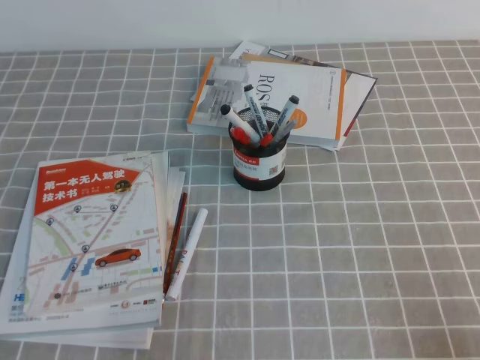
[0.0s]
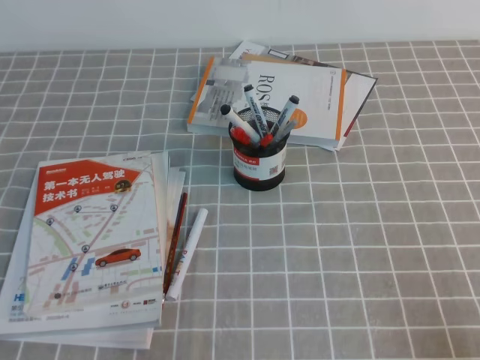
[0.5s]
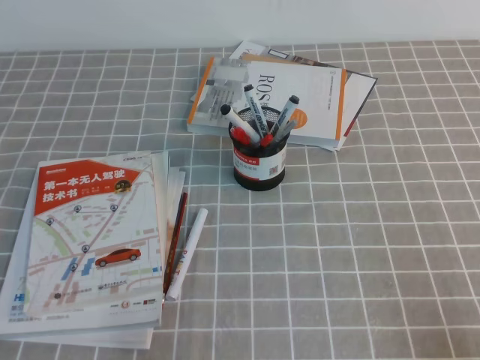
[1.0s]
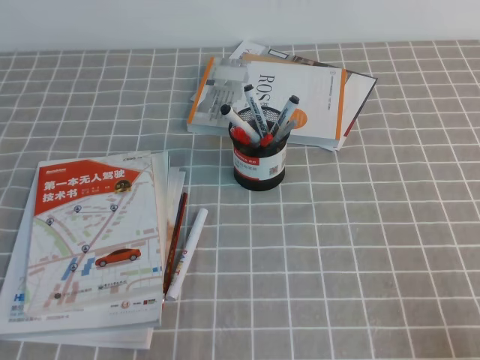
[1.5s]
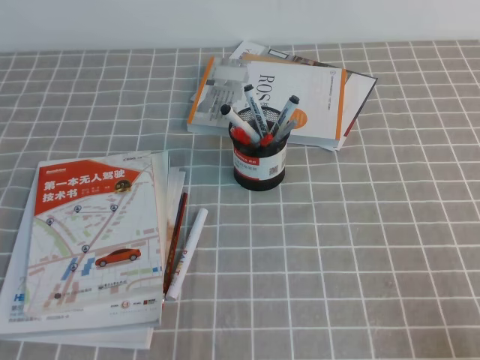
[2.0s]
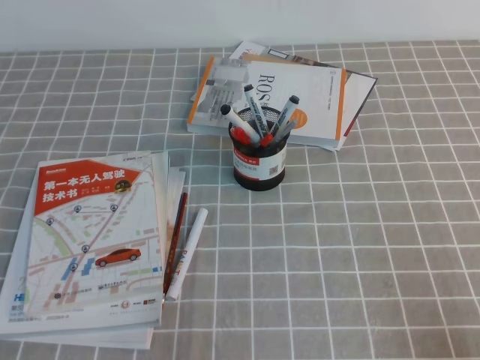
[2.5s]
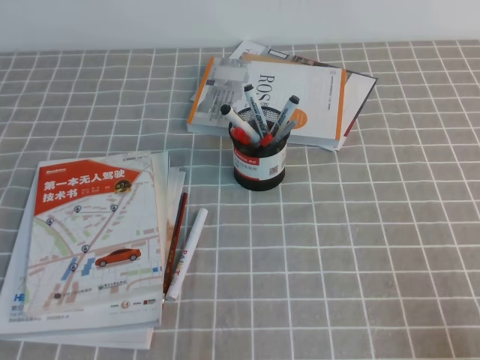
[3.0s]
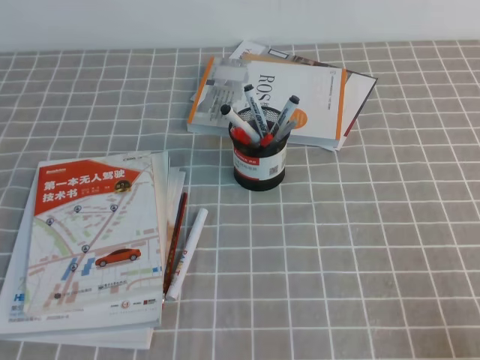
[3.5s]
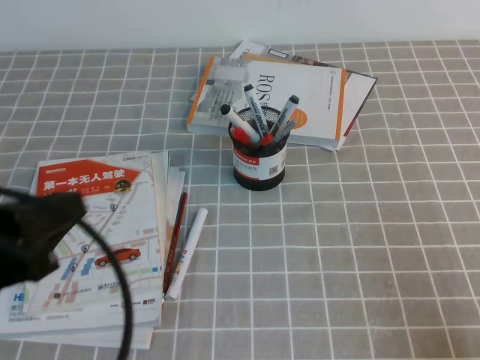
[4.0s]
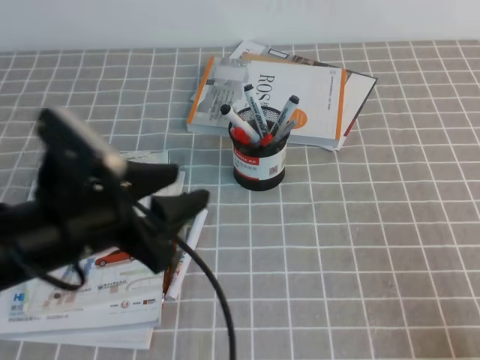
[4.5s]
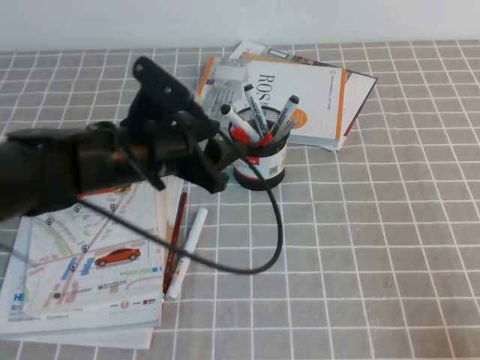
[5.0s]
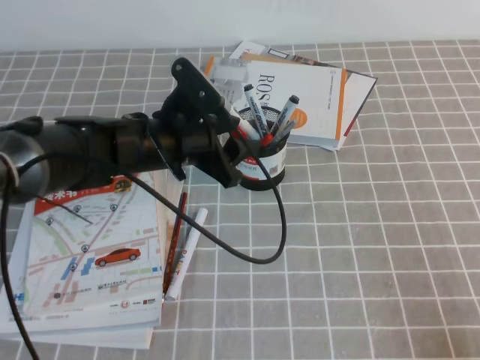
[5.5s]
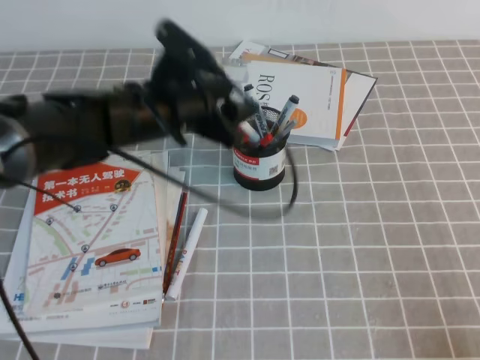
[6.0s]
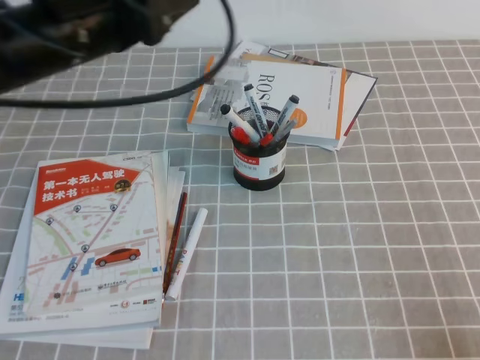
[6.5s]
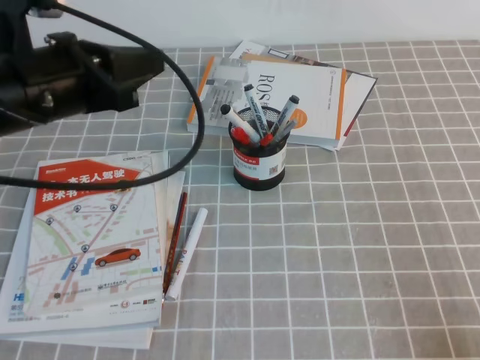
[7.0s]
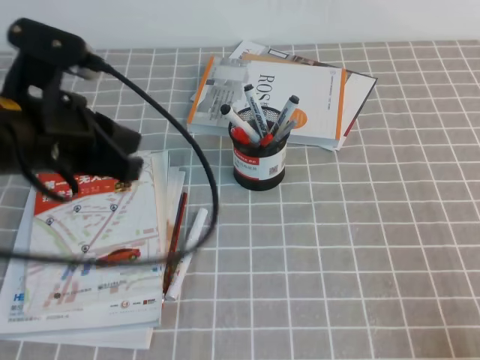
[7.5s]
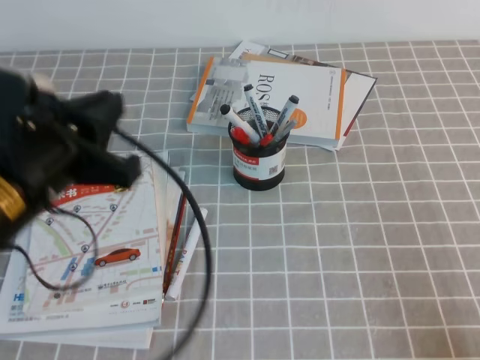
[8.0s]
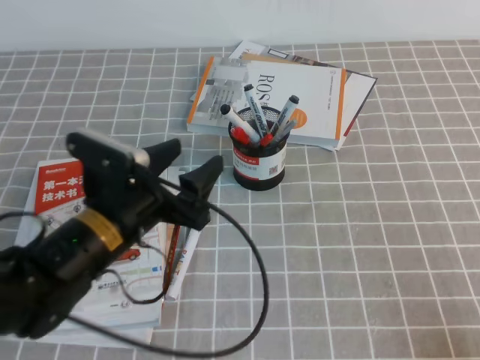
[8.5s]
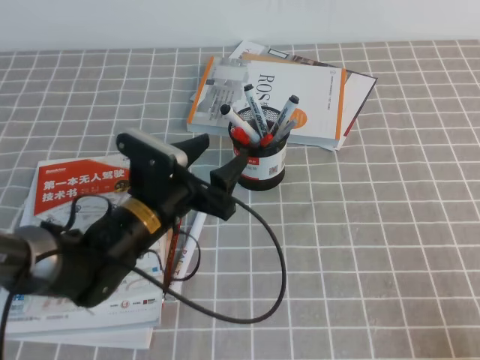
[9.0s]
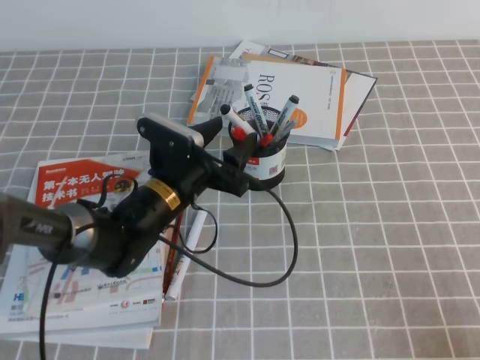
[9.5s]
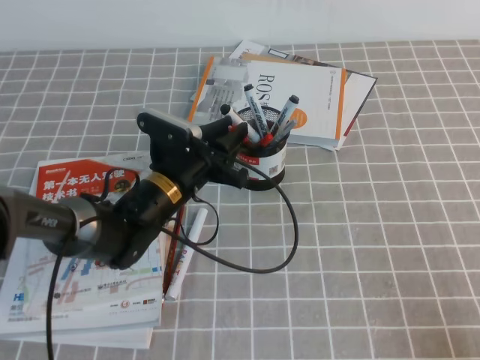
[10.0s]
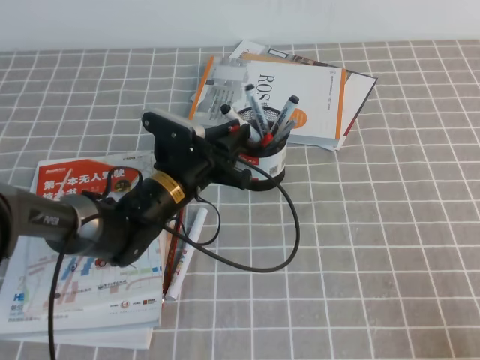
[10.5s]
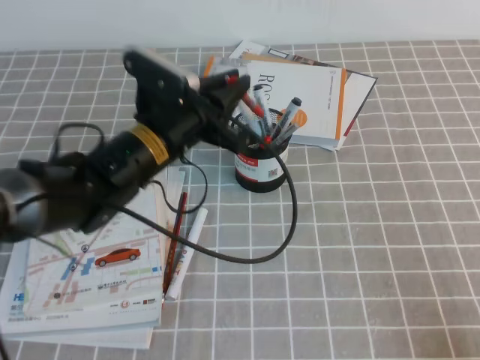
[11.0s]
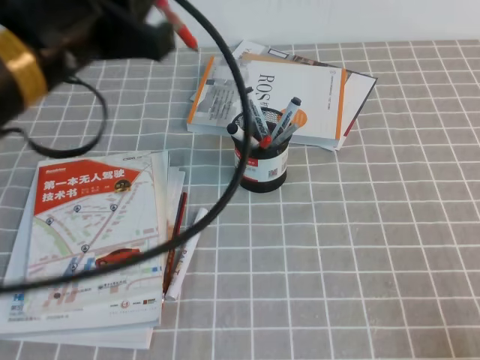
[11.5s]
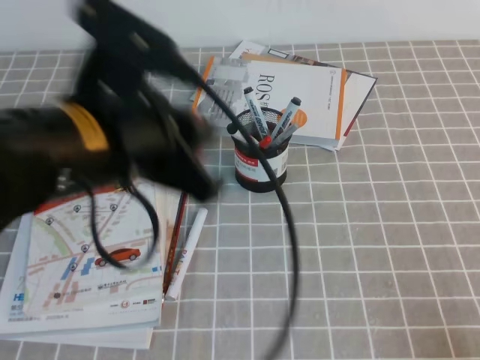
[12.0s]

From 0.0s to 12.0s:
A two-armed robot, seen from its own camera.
From 2.0s to 4.0s: The left gripper travels upward by about 10 cm.
From 4.0s to 6.0s: The left gripper is displaced forward and to the right by roughly 30 cm, and opens its fingers.
From 6.0s to 8.0s: The left gripper moves backward, to the left and upward, approximately 20 cm, and closes.
From 8.0s to 10.0s: The left gripper heads downward, forward and to the right, covering roughly 25 cm, and opens.
From 10.0s to 12.0s: The left gripper travels upward and backward by about 30 cm.

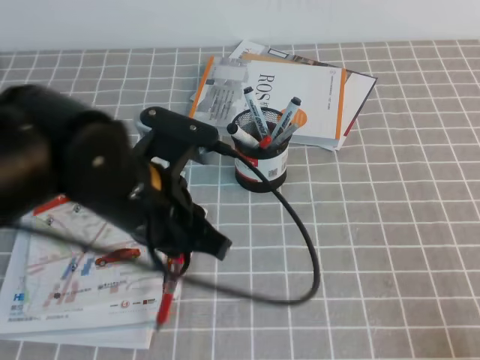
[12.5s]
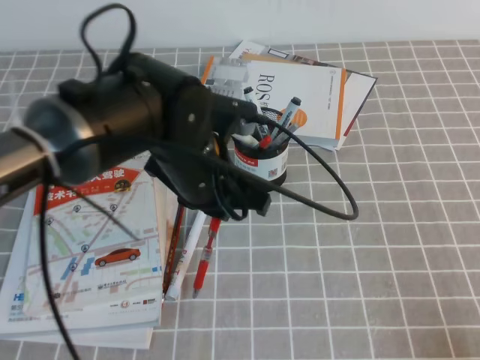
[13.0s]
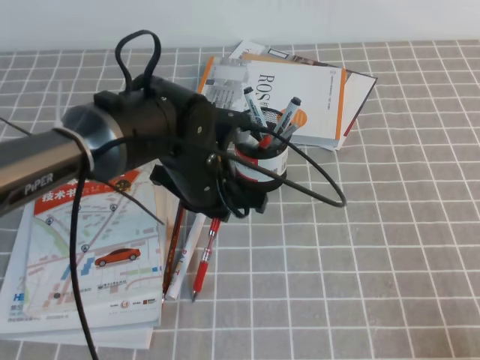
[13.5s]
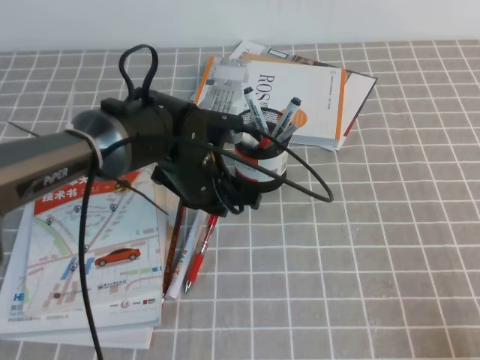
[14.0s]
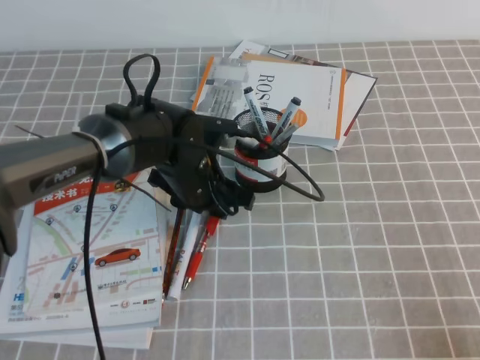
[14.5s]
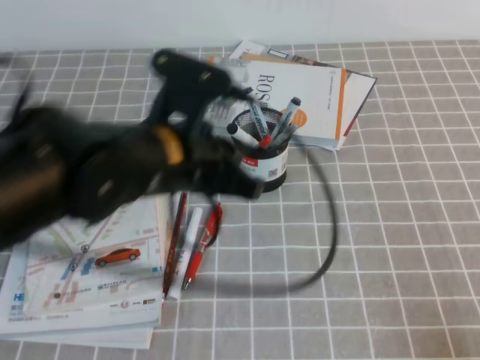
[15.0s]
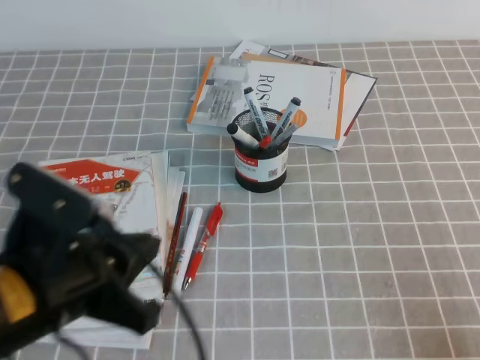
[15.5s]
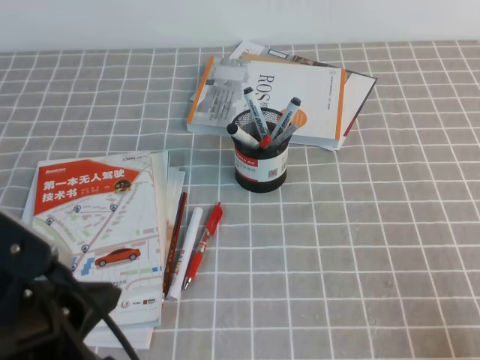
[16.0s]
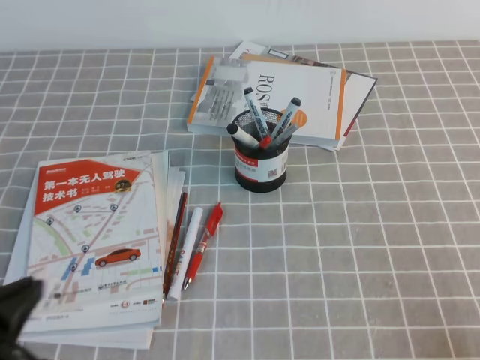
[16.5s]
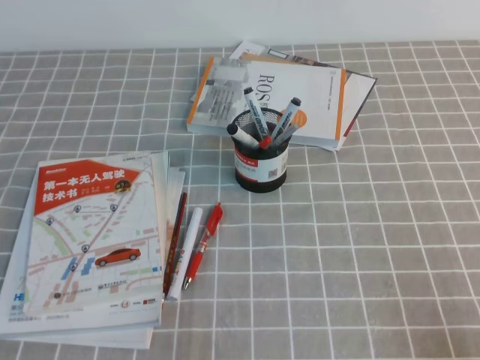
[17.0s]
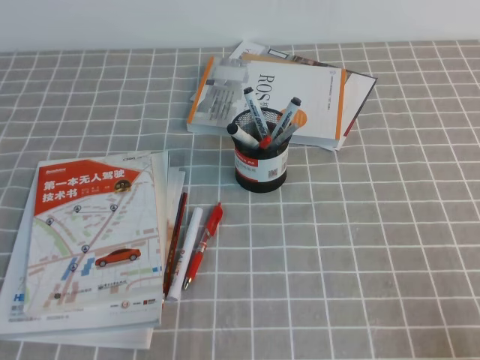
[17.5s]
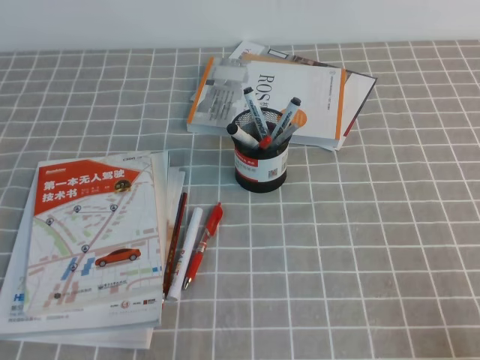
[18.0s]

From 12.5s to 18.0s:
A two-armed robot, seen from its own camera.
Step, from 12.5s to 18.0s: Pick up the pen from the pen holder.
From 12.5s to 14.5s: The left gripper travels forward and downward by some 20 cm, and opens.
From 14.5s to 16.0s: The left gripper shifts approximately 30 cm backward, to the left and upward, and closes up.
From 16.0s to 18.0s: The left gripper moves downward, to the left and backward, roughly 15 cm.

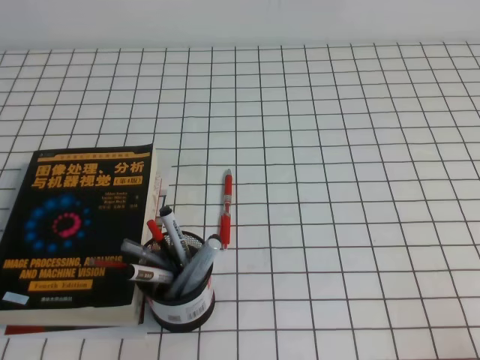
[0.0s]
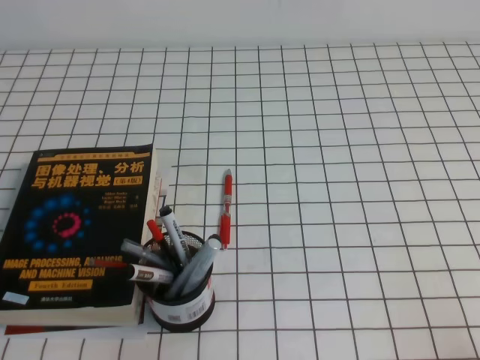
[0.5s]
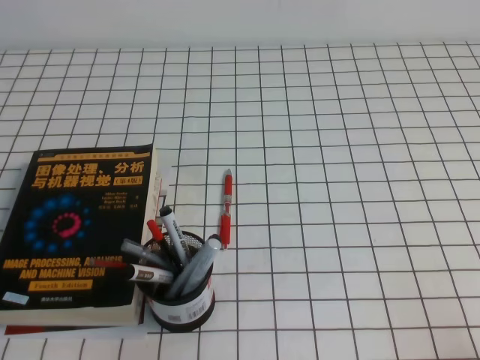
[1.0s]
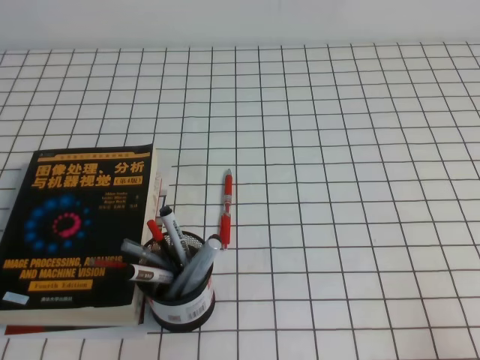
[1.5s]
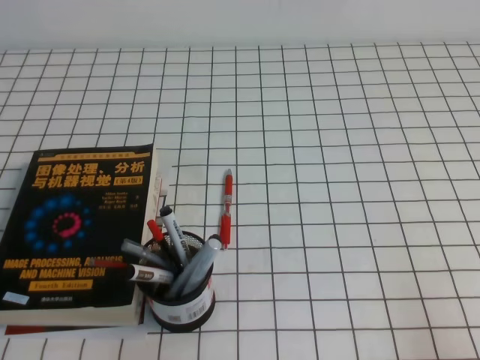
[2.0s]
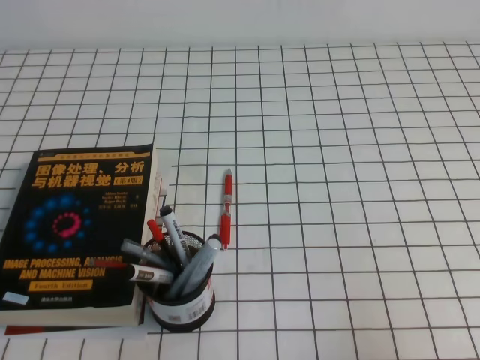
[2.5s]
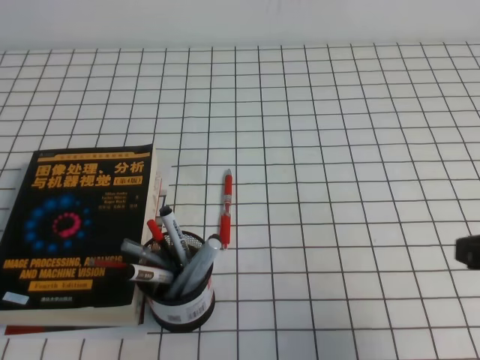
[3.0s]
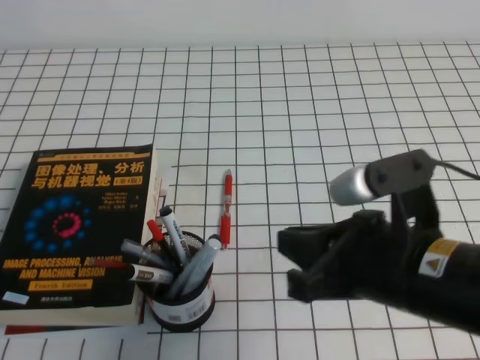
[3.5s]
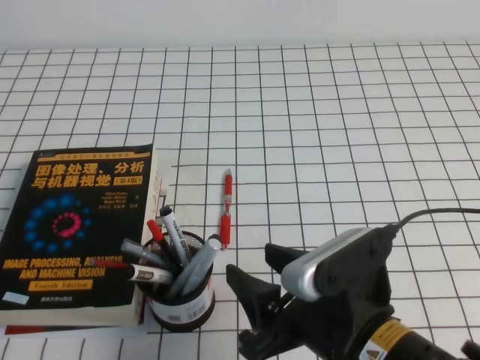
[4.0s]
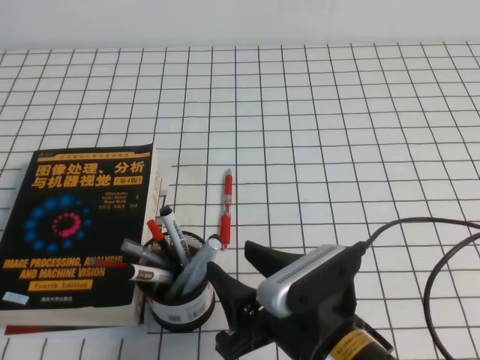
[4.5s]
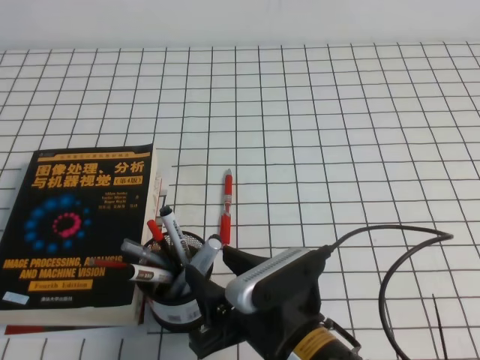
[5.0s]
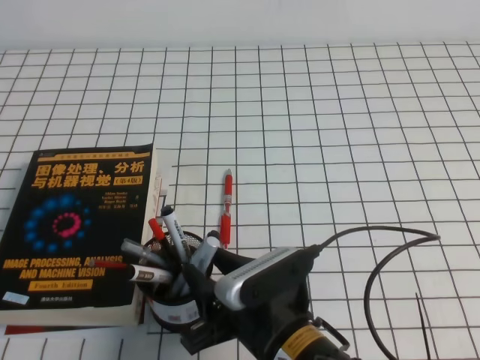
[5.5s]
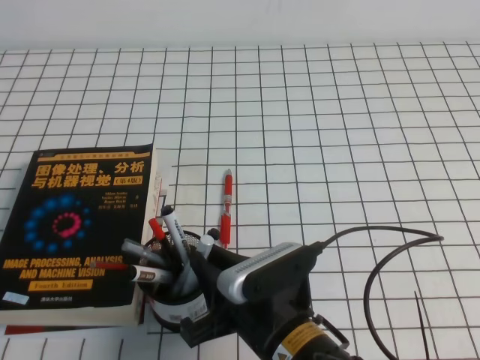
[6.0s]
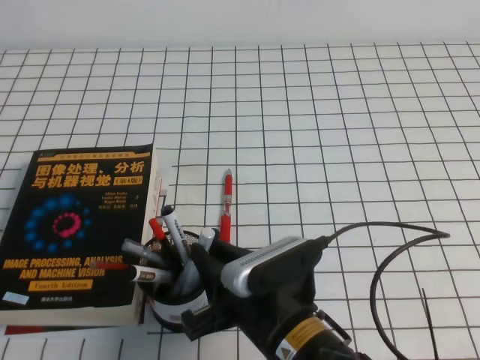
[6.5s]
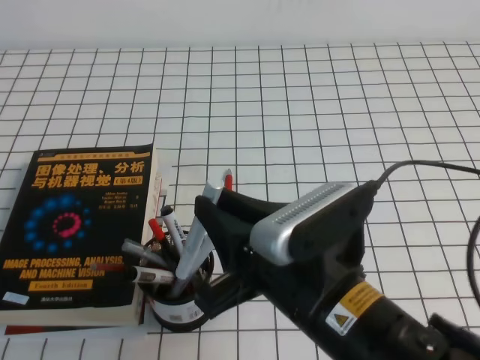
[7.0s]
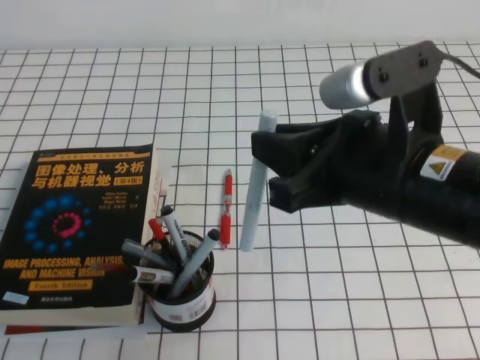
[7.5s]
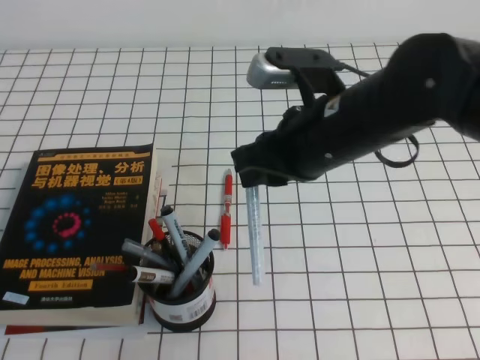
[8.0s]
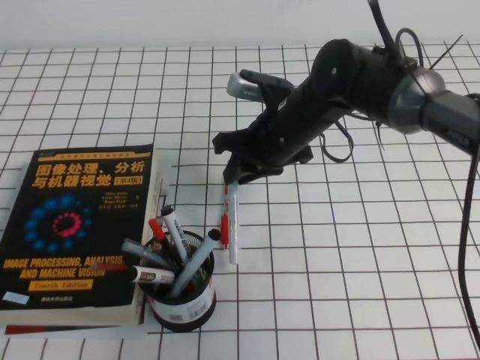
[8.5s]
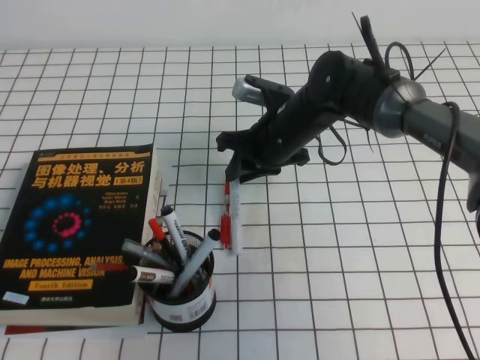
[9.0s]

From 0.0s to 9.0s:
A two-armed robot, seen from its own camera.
From 2.0s to 4.5s: The right gripper heads to the left, covering roughly 25 cm, and opens up.
From 4.5s to 7.0s: The right gripper travels upward by about 5 cm, and closes its fingers.
From 7.0s to 9.0s: The right gripper shifts about 30 cm forward.
